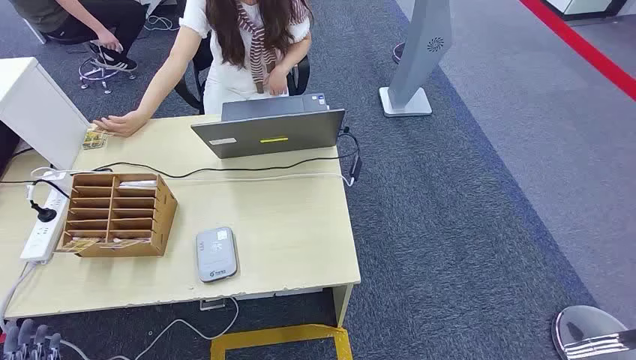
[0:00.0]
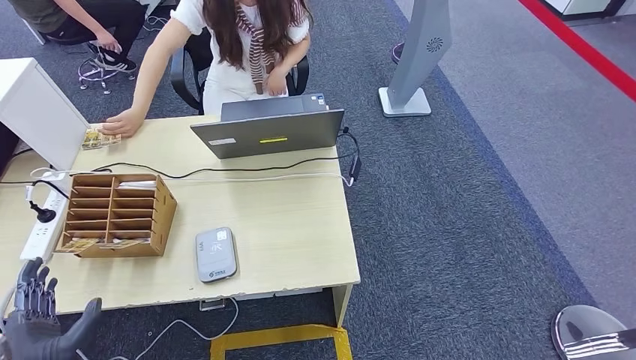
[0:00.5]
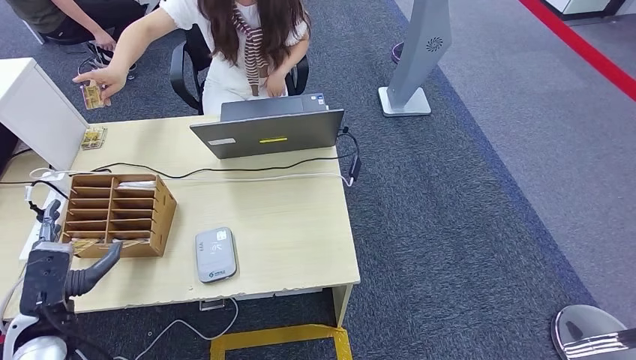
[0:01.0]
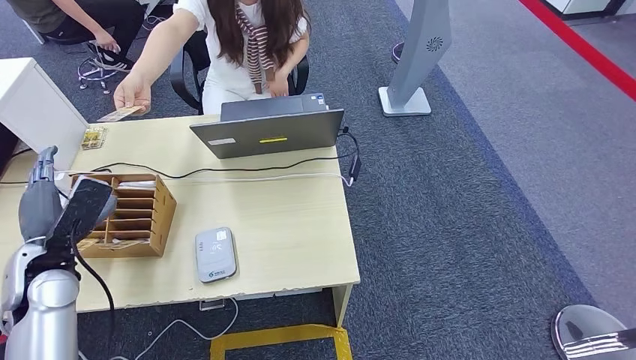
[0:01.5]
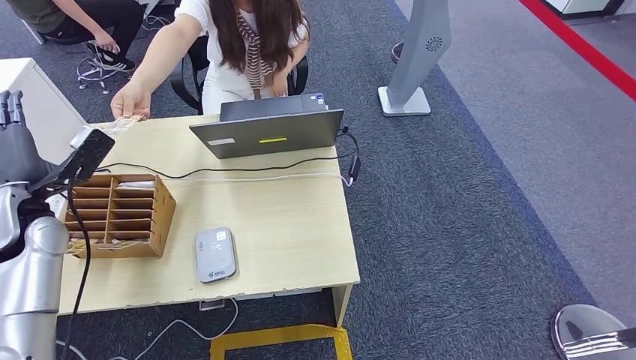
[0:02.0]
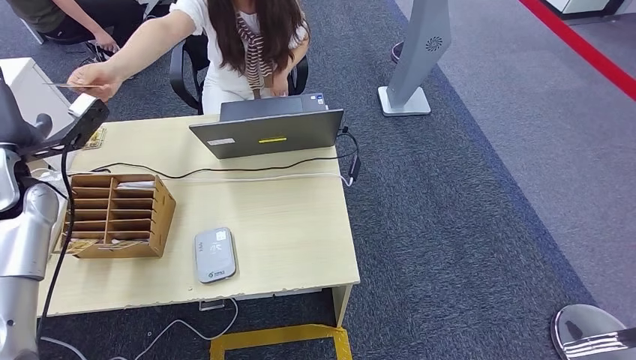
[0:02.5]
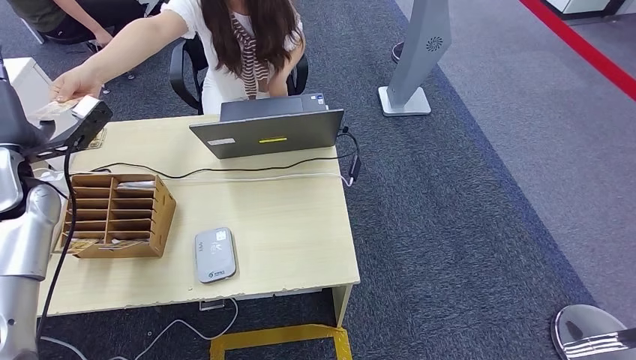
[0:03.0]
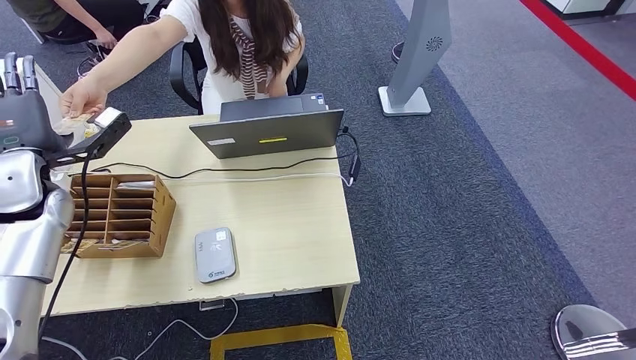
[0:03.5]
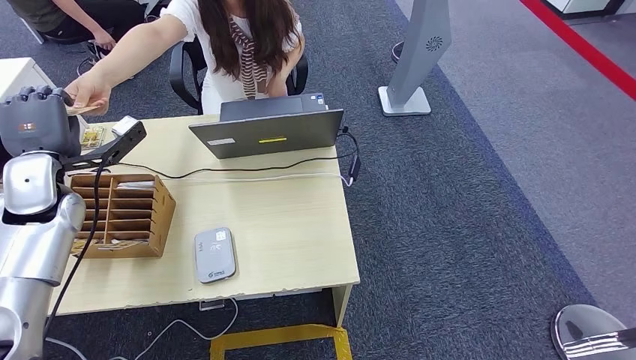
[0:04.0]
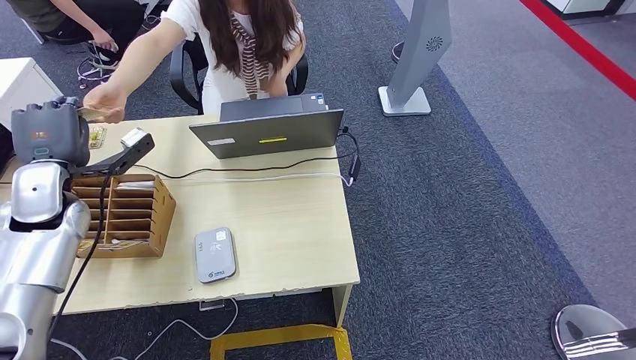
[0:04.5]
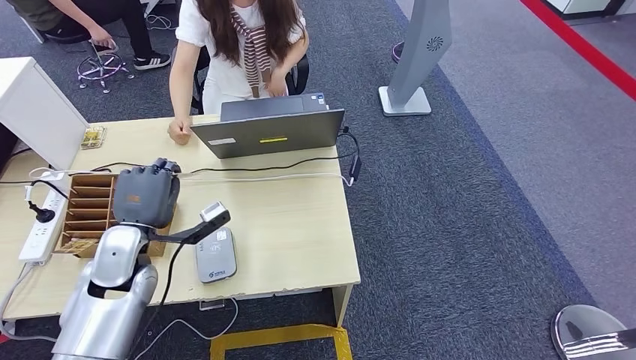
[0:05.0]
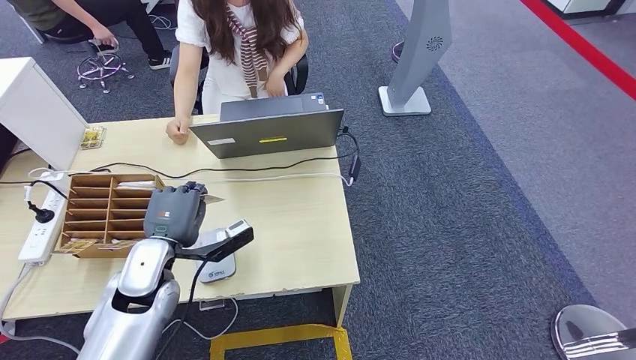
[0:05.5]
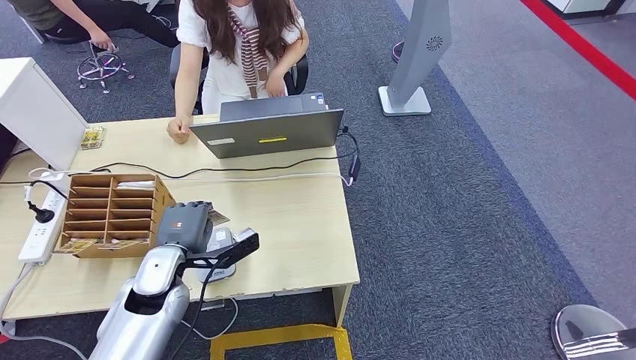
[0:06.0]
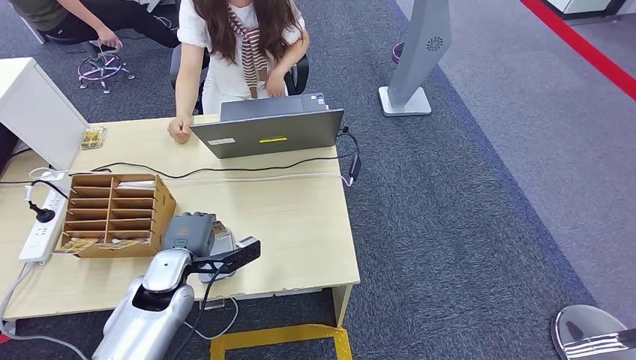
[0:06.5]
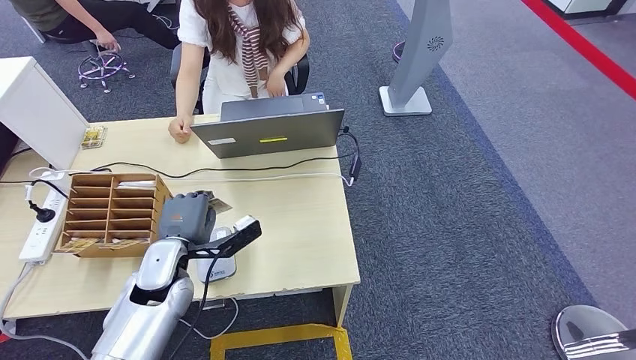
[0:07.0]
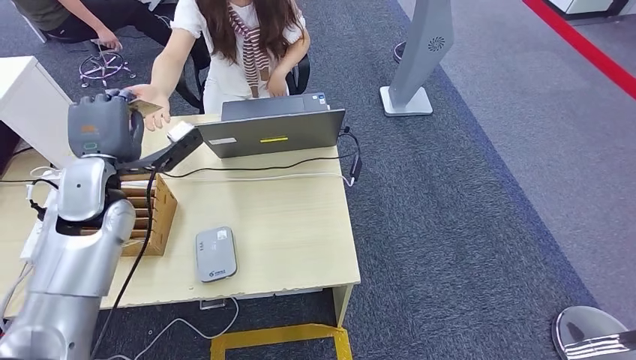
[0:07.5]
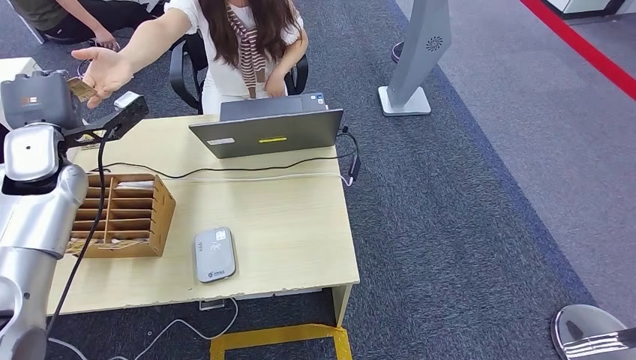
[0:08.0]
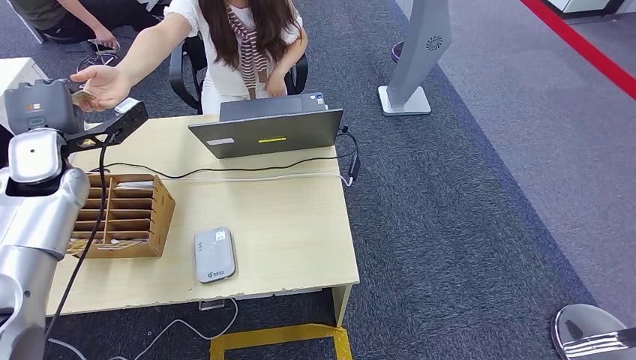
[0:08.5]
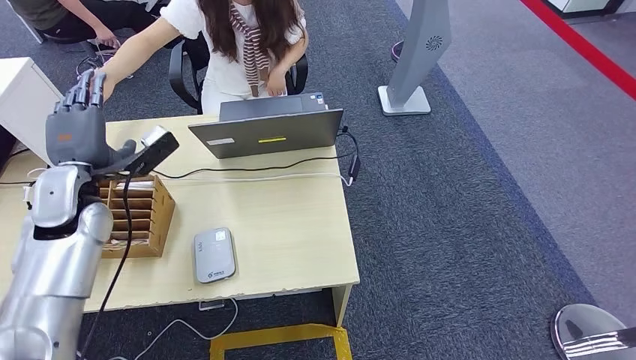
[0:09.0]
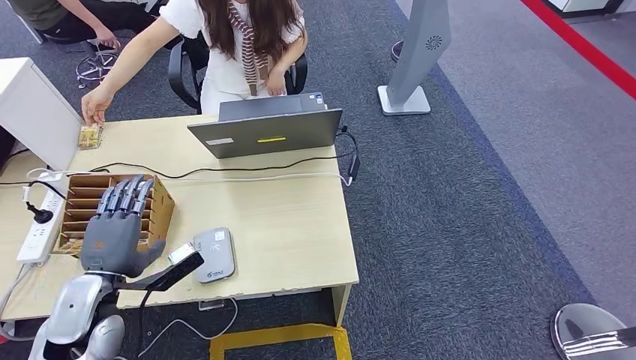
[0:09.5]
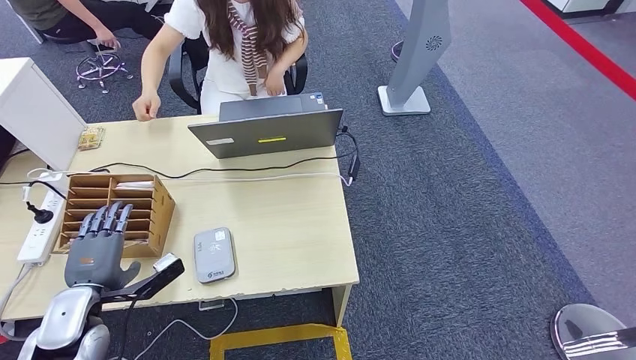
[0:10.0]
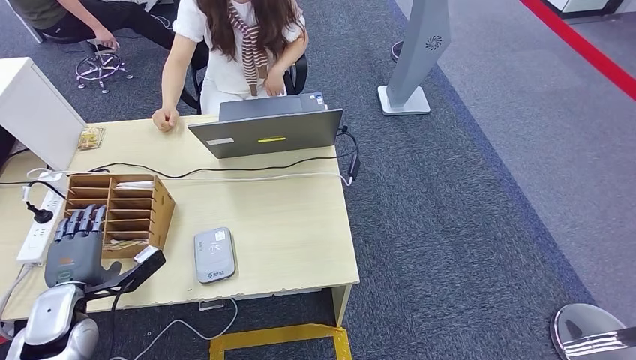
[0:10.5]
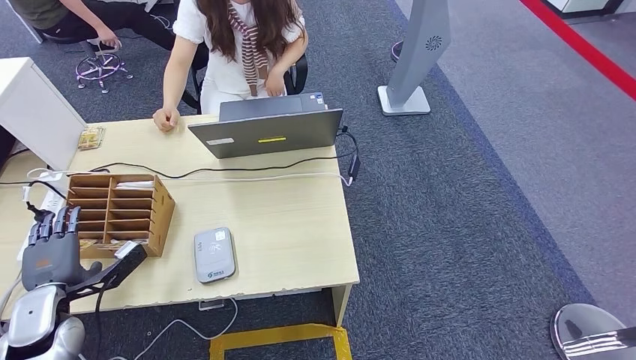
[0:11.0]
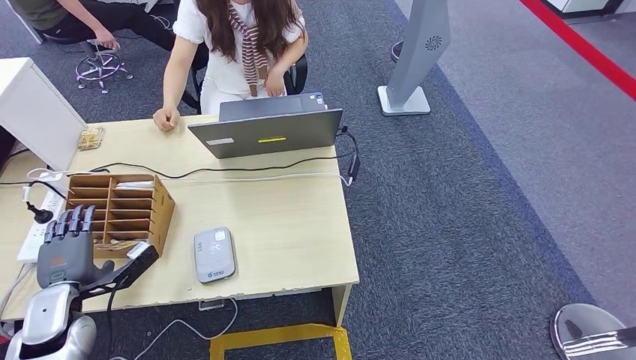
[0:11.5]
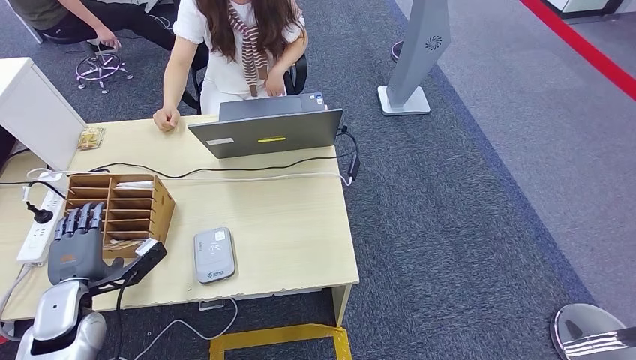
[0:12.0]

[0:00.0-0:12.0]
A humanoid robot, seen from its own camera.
Step, 0:00.0 to 0:05.5: Take the ID card from the person's hand.
Step, 0:06.0 to 0:06.5: Place the ID card on the card reader.
Step, 0:07.0 to 0:09.0: Hand the ID card to the person.
0:06.0 to 0:08.0: The left hand moves upward, forward and to the left, about 25 cm.
0:08.0 to 0:10.0: The left hand moves downward and backward, roughly 25 cm.
0:10.0 to 0:12.0: There are only small adjustments of the hands.

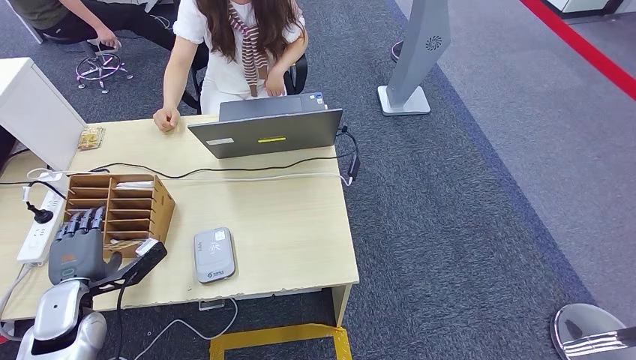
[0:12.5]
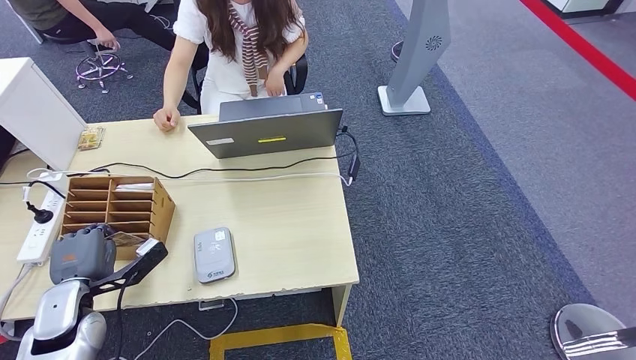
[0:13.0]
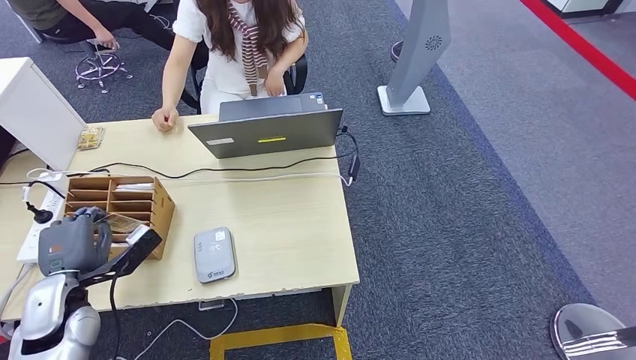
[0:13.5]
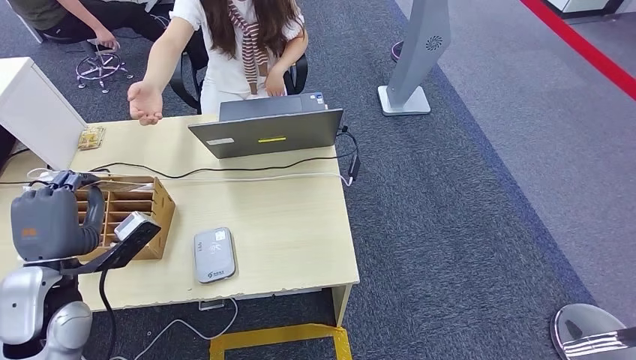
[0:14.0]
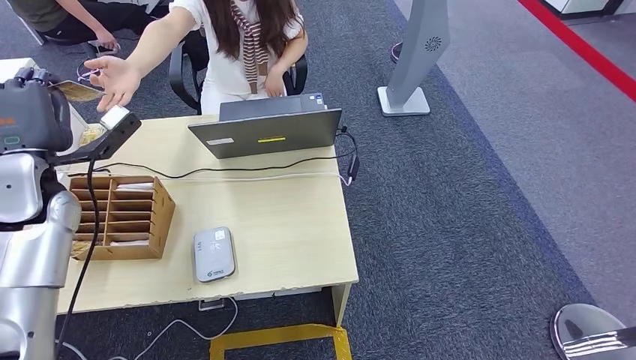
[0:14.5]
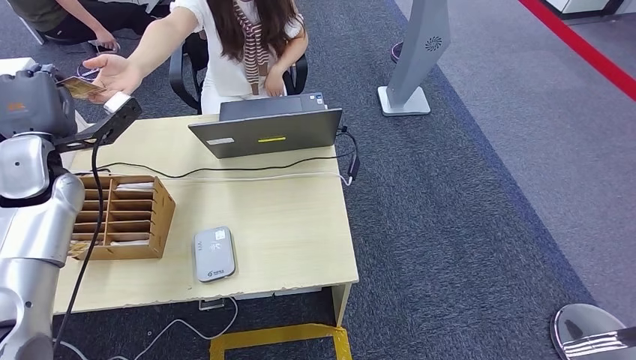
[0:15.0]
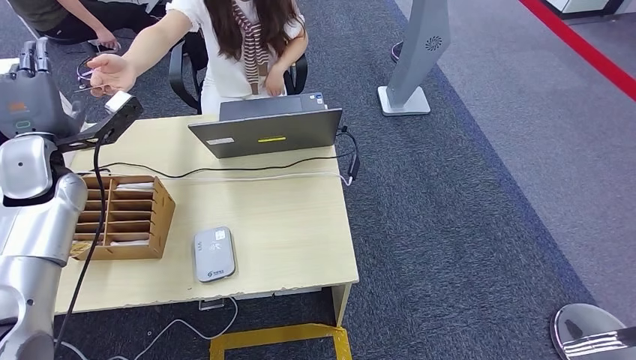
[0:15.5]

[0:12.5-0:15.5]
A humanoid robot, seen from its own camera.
Step, 0:14.5 to 0:15.5: Hand the room key to the person.
0:12.5 to 0:14.0: The left hand heads upward, covering roughly 10 cm.
0:14.0 to 0:15.5: The left hand shifts about 20 cm forward and upward.

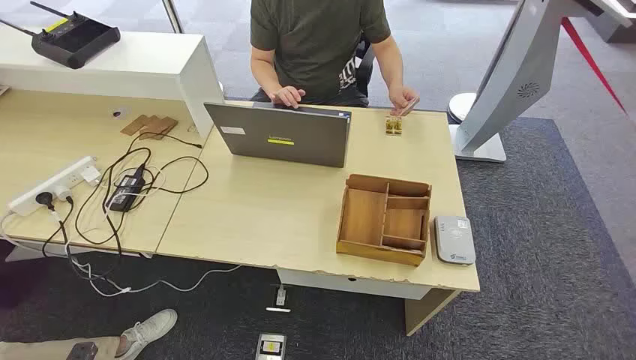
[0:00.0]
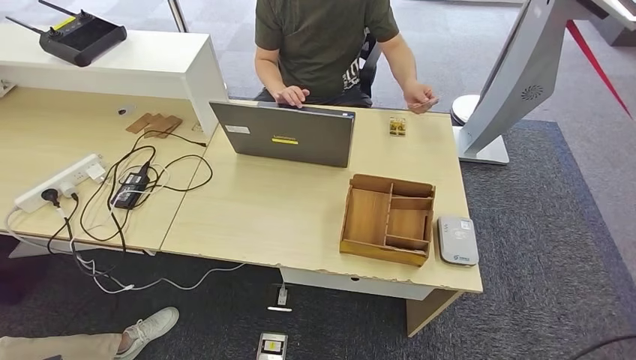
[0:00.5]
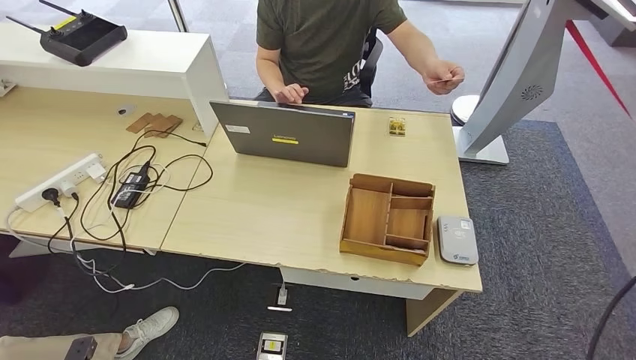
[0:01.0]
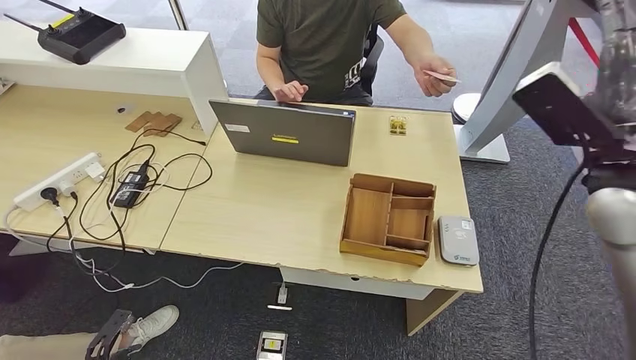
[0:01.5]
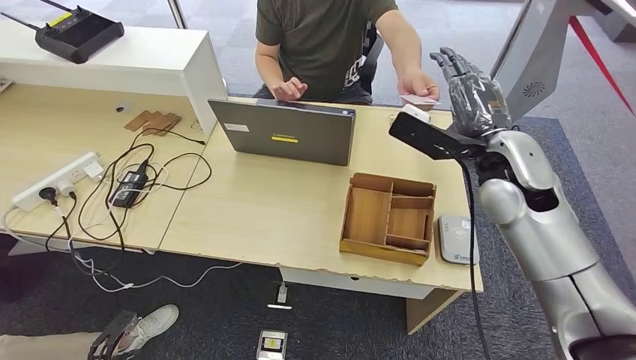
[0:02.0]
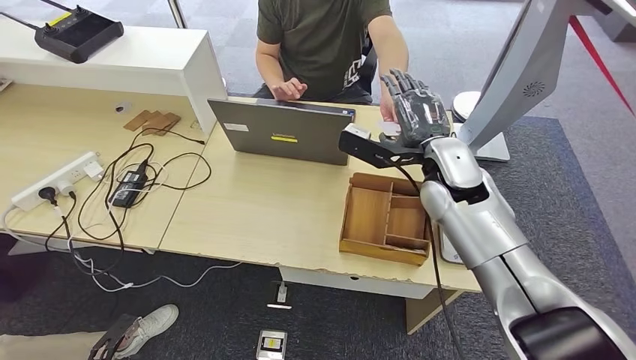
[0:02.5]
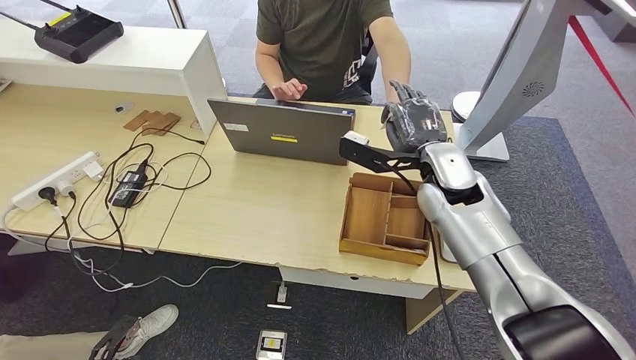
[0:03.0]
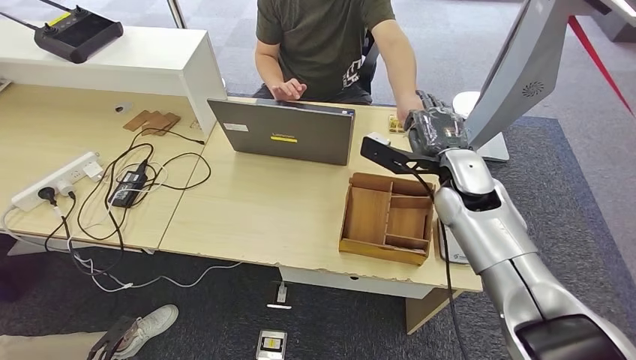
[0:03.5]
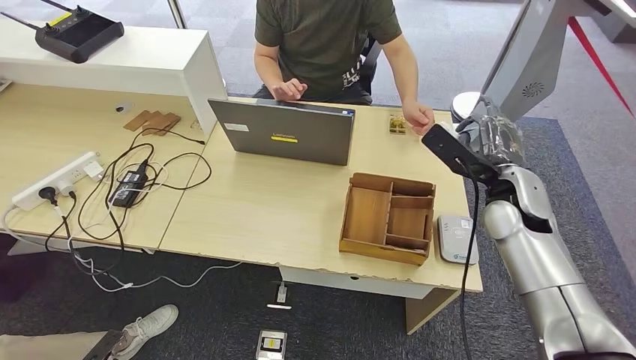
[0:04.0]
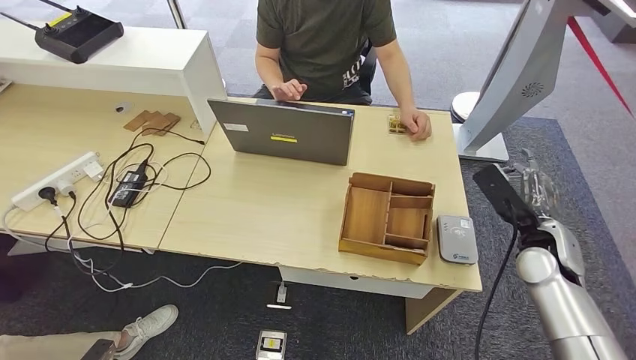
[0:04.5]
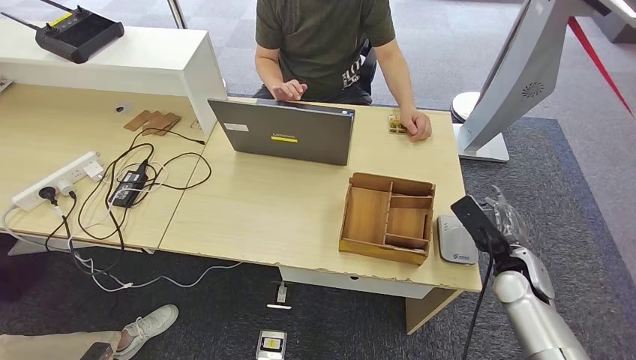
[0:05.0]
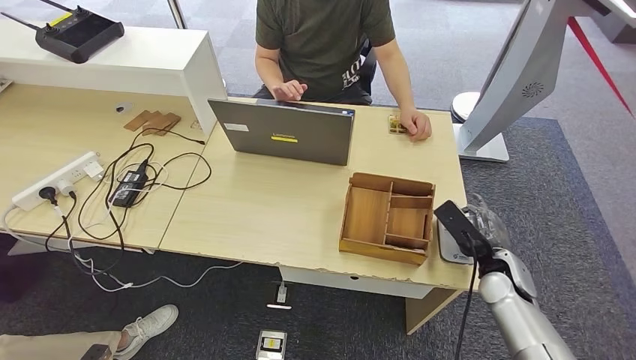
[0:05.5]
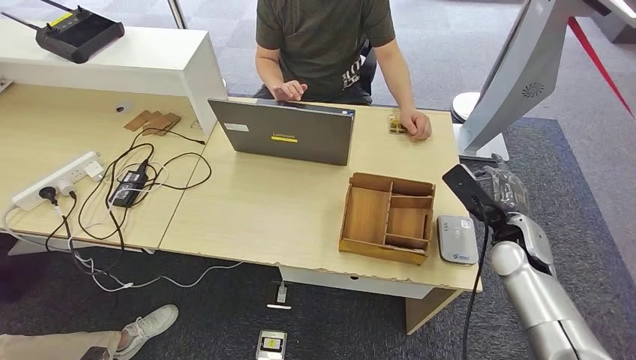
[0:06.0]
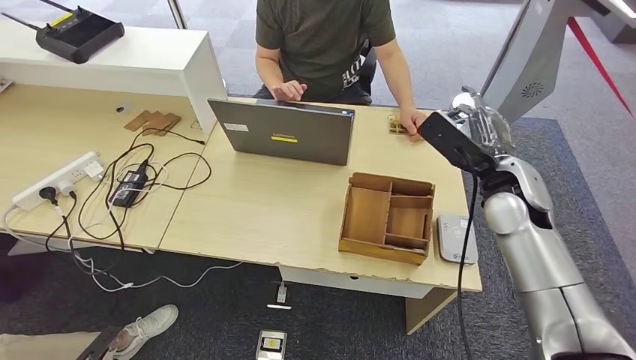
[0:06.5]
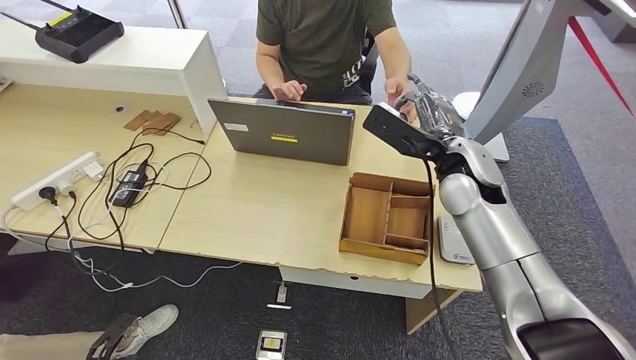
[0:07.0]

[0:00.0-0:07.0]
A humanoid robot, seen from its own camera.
Step, 0:00.0 to 0:03.5: Take the ID card from the person's hand.
Step, 0:04.0 to 0:05.0: Place the ID card on the card reader.
0:02.0 to 0:03.5: The right hand goes about 5 cm downward.
0:03.5 to 0:05.0: The right hand travels downward, to the right and backward by roughly 20 cm; the left hand goes approximately 5 cm backward.
0:05.0 to 0:07.0: The left hand travels forward by about 5 cm. Meanwhile the right hand moves upward, to the left and forward, approximately 25 cm.
